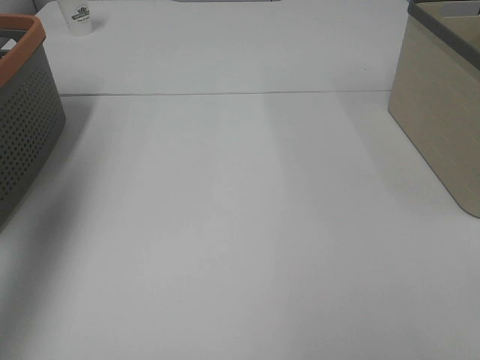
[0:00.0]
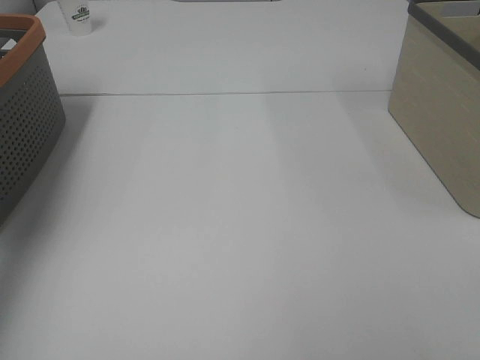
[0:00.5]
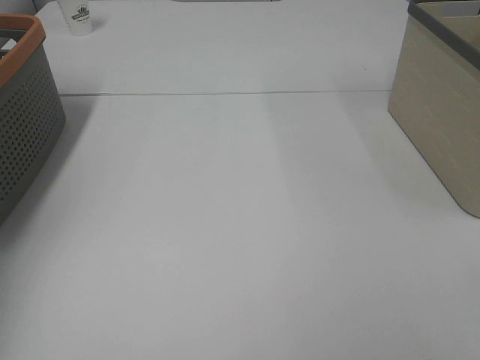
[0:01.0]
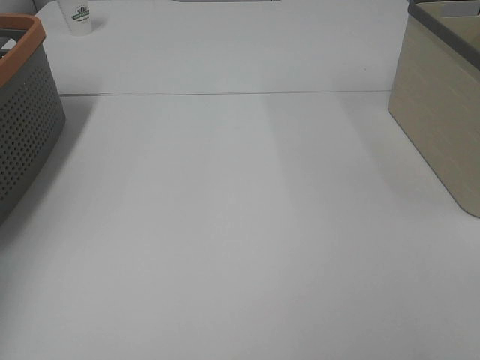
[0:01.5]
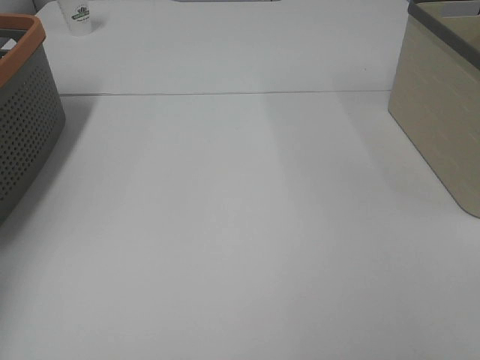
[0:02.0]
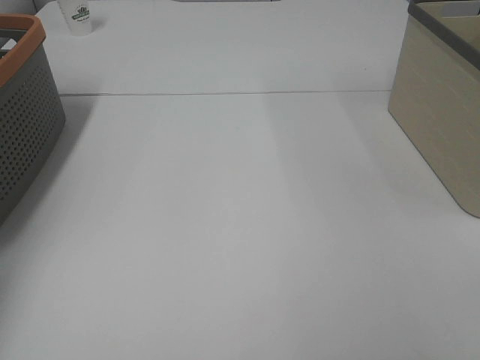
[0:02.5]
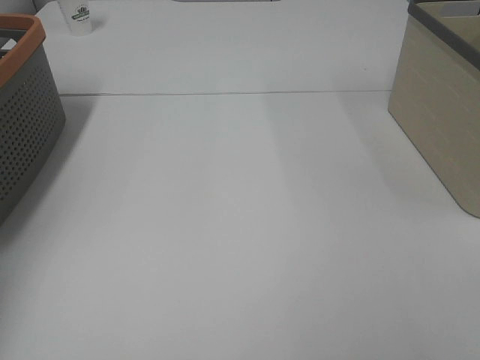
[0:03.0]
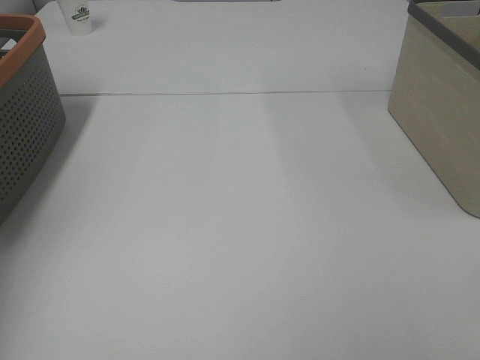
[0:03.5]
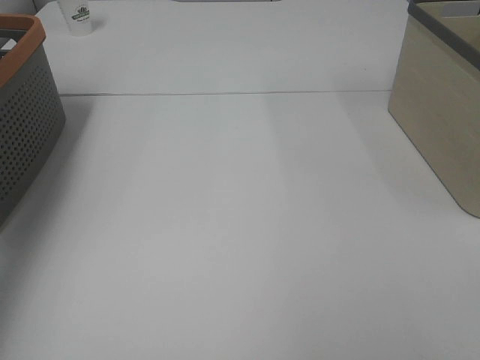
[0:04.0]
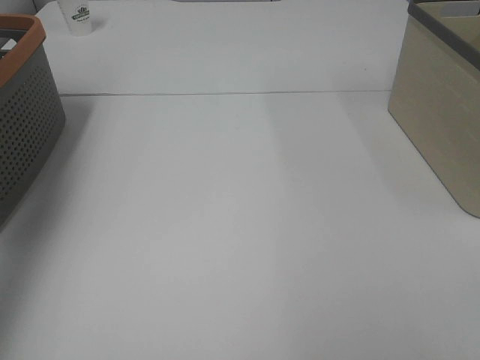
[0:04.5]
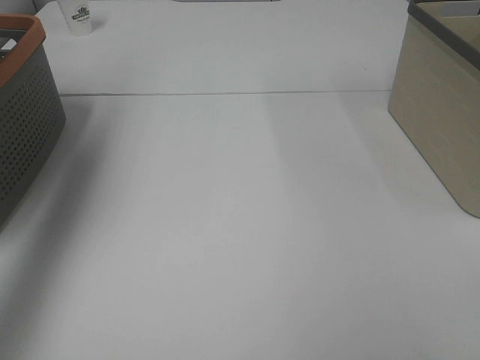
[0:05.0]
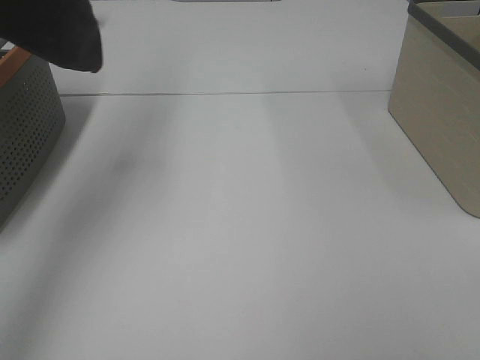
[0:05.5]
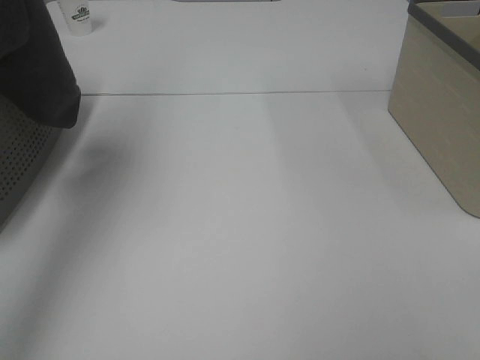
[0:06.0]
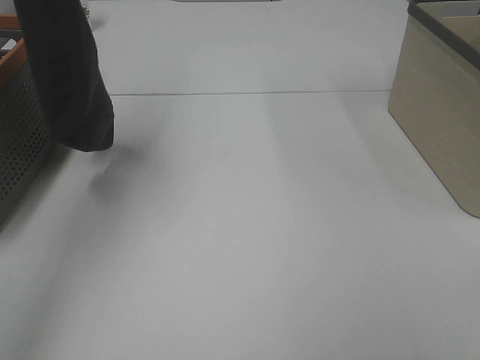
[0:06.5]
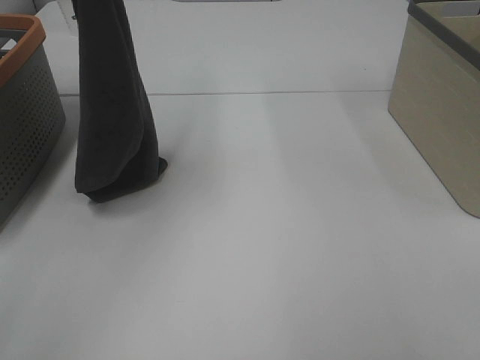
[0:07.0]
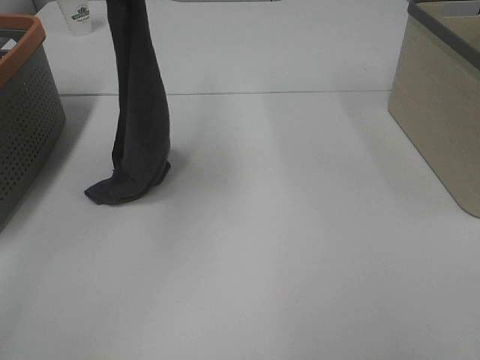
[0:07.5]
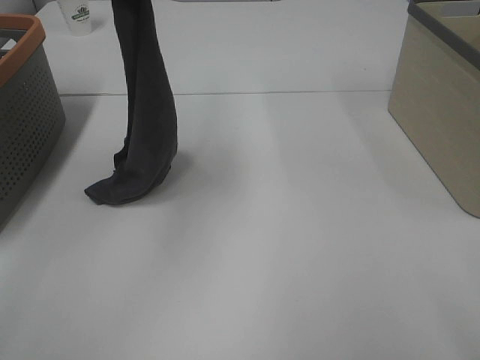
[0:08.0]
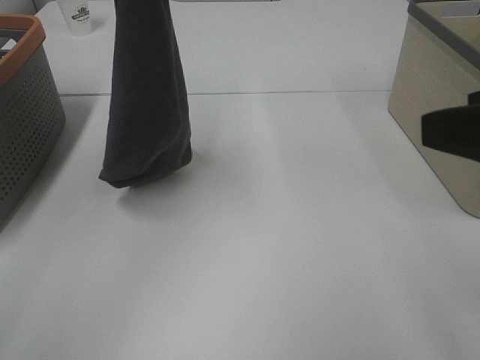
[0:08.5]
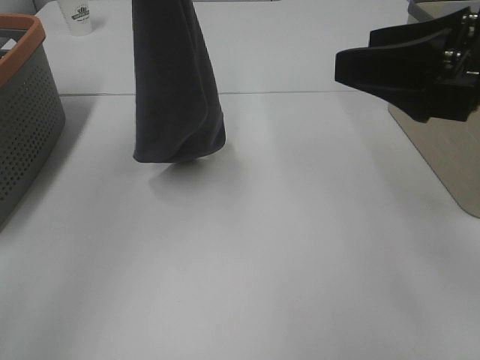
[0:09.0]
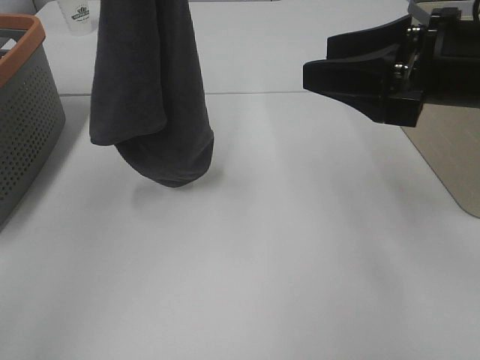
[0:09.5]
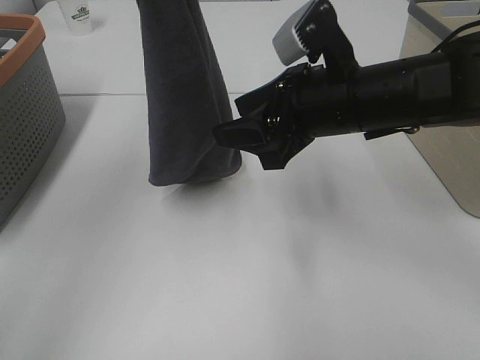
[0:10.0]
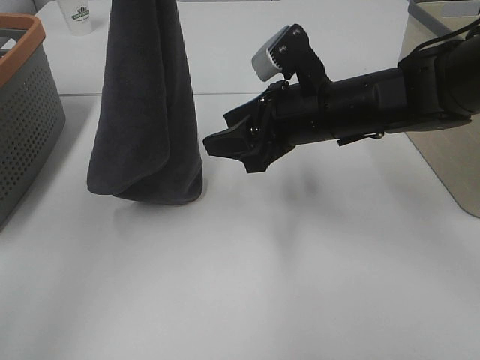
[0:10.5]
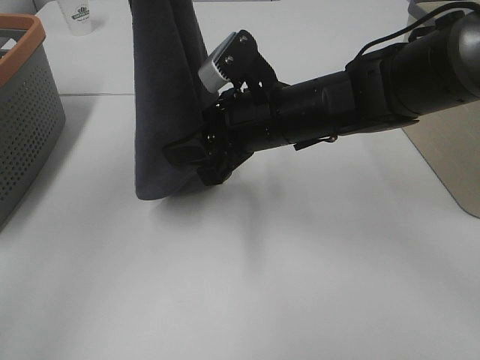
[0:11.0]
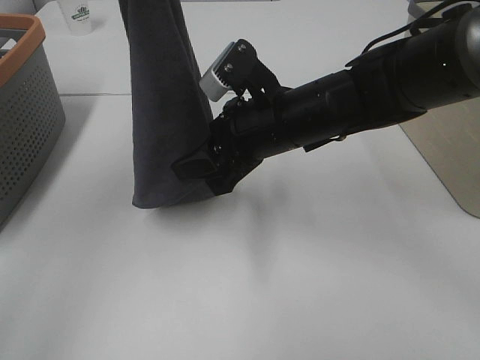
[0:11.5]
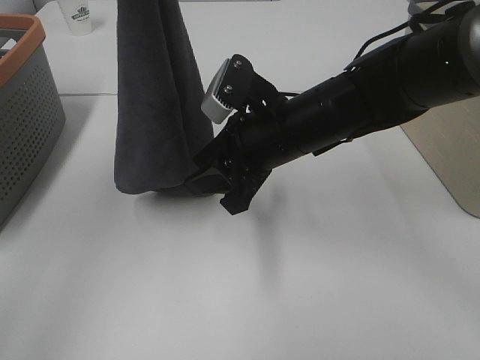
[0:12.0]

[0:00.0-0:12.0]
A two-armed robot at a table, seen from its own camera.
Task of the whole recording: Remove the towel and place it.
Step, 0:06.0 to 0:11.5: Right hand: grab a corner of the grey towel and straighten it.
0:00.0 to 0:02.0: The left gripper travels downward, forward and to the left by some 20 cm.
0:02.0 to 0:04.0: The left gripper shifts some 20 cm upward and backward, and closes.
0:04.0 to 0:06.0: The left gripper goes about 15 cm to the right and upward.
0:06.0 to 0:08.0: The left gripper is displaced downward and to the right by some 20 cm. Meanwhile the right gripper is displaced forward by roughly 5 cm.
0:08.0 to 0:10.0: The left gripper travels upward by roughly 10 cm, while the right gripper shifts some 30 cm forward, to the left and downward.
0:10.0 to 0:12.0: The right gripper travels to the left by some 5 cm.

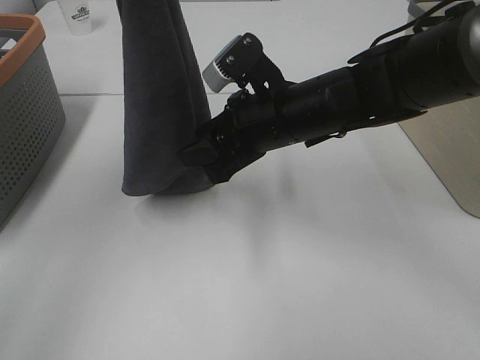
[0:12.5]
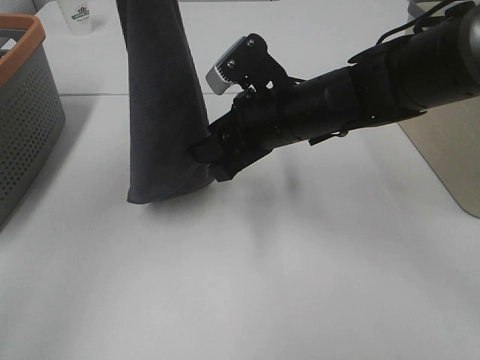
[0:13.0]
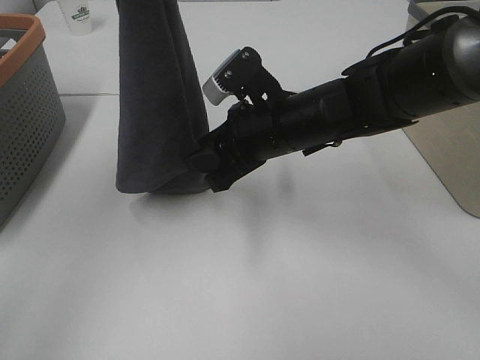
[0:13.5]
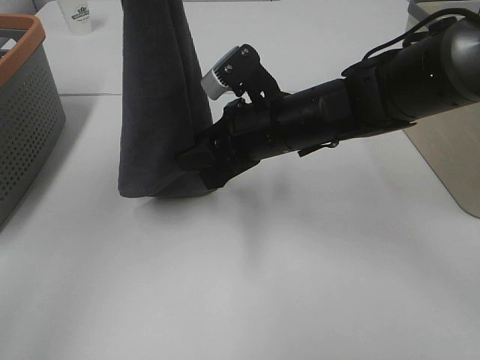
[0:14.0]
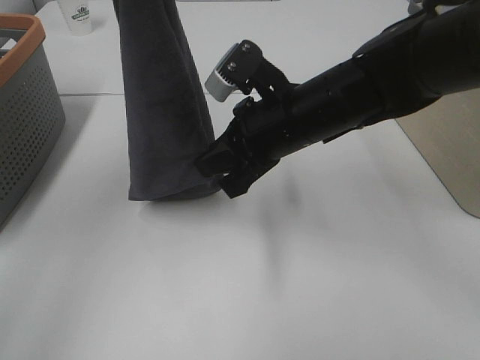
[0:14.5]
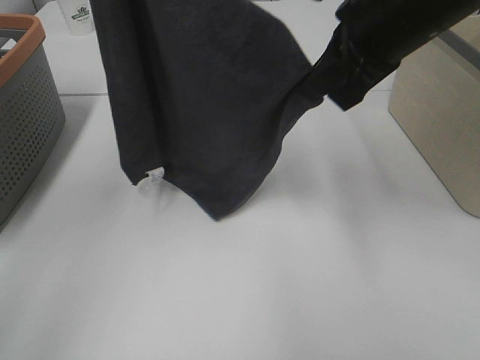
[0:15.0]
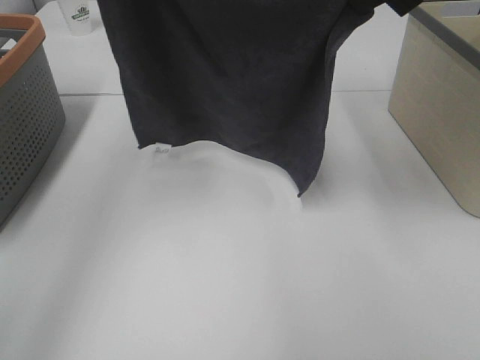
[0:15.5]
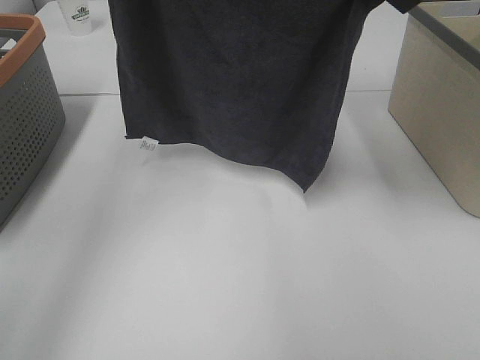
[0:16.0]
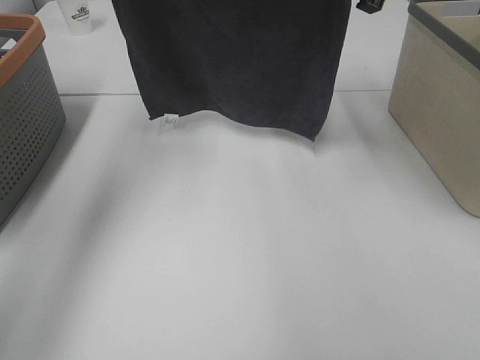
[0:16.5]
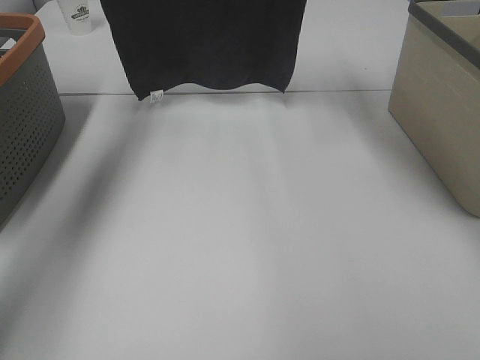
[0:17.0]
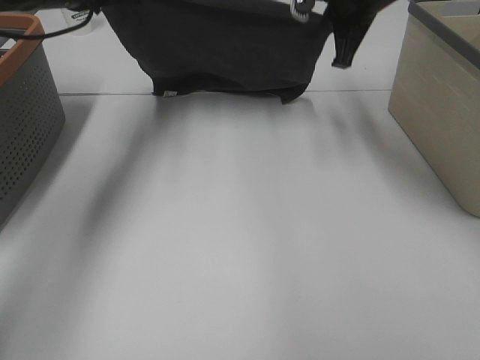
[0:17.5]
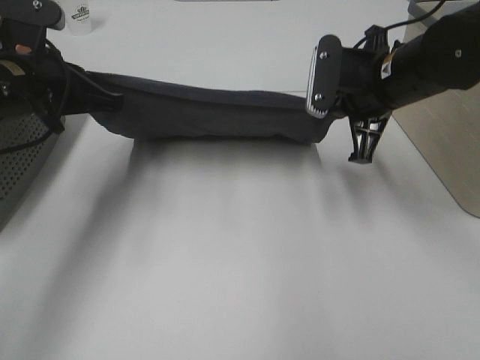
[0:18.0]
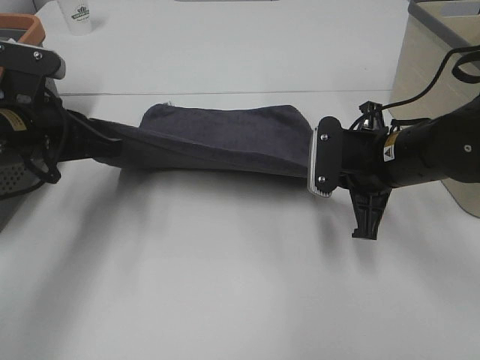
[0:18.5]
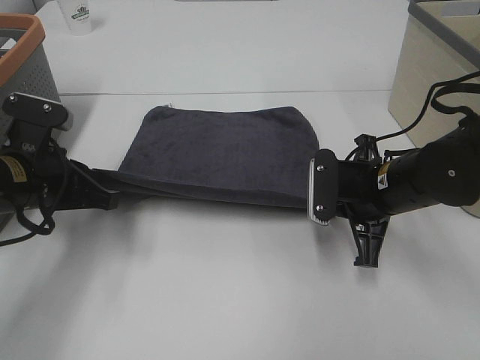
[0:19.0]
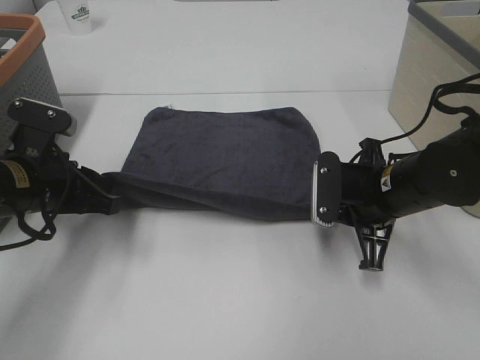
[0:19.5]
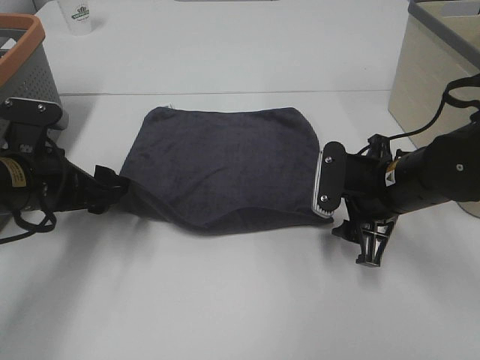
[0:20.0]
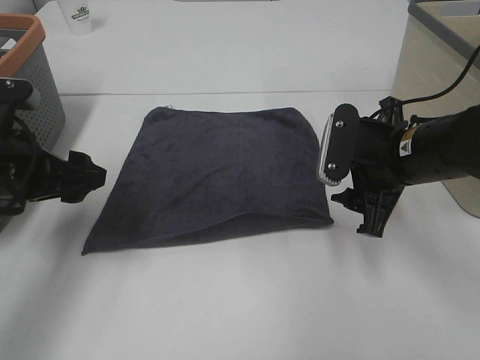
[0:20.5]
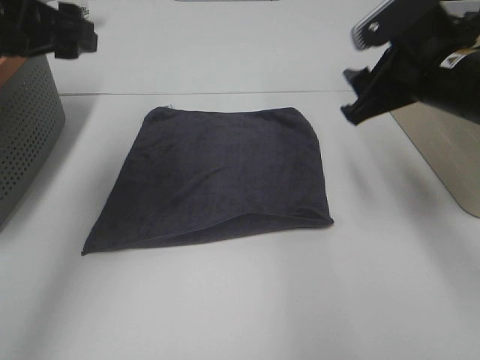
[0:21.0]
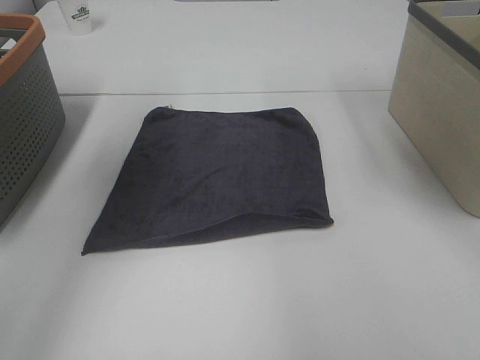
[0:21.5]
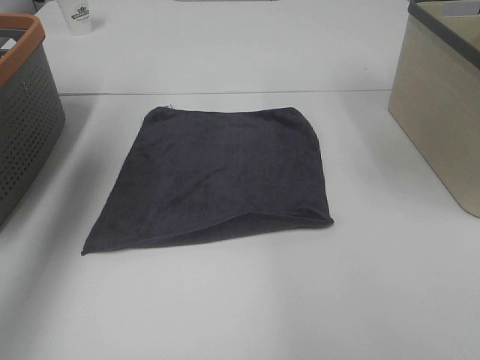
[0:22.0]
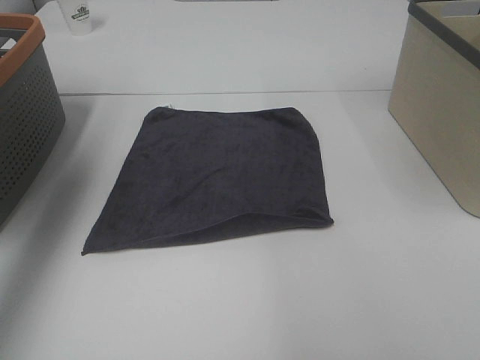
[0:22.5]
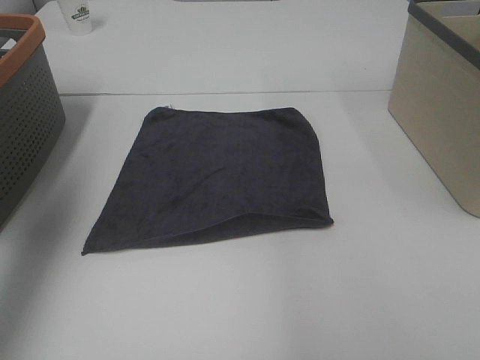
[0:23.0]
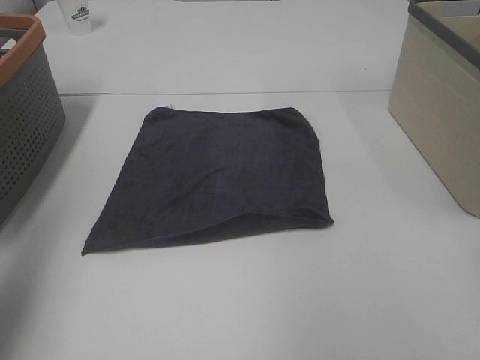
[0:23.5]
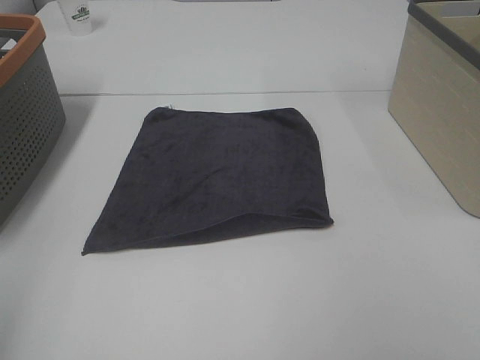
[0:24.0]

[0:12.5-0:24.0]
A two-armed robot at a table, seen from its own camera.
Task of the whole recording: Remove the towel and place it.
Step, 0:12.5 to 0:15.0: Right hand: spread the grey towel flat on the table.
0:12.5 to 0:14.5: The right gripper closes.
0:14.5 to 0:16.5: The left gripper moves forward and downward, about 15 cm. The right gripper shifts approximately 20 cm upward, forward and to the right.
0:16.5 to 0:18.5: The two grippers go roughly 25 cm downward and backward.
0:18.5 to 0:20.0: The right gripper opens up; the left gripper opens.
0:20.0 to 0:22.0: The two grippers go roughly 25 cm upward.
0:22.0 to 0:24.0: The left gripper is displaced backward by roughly 30 cm.
